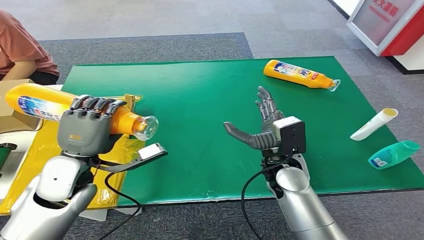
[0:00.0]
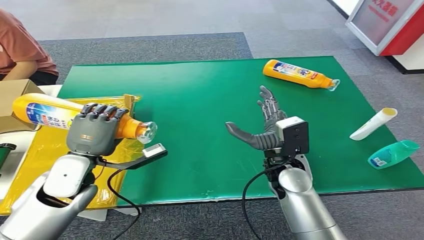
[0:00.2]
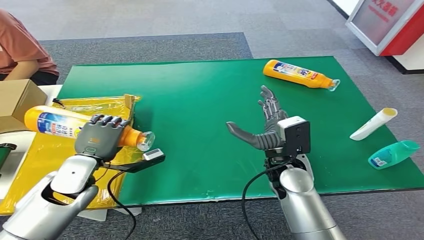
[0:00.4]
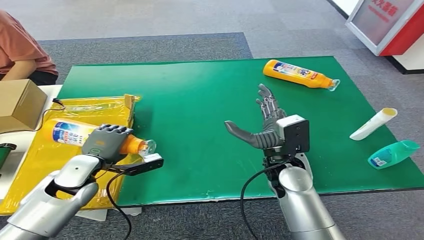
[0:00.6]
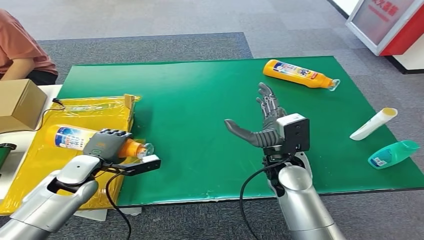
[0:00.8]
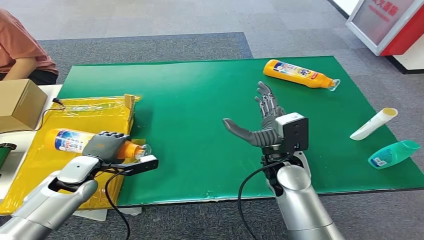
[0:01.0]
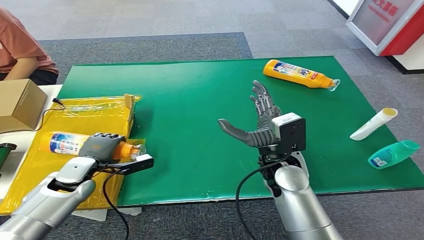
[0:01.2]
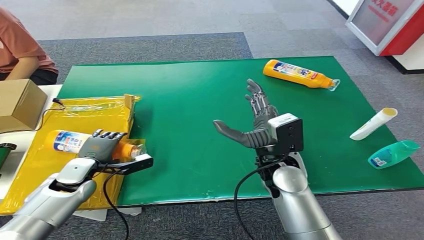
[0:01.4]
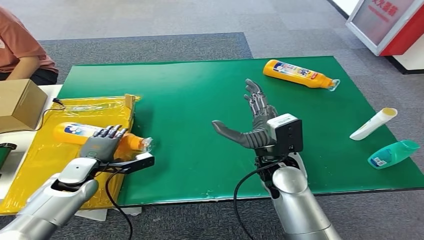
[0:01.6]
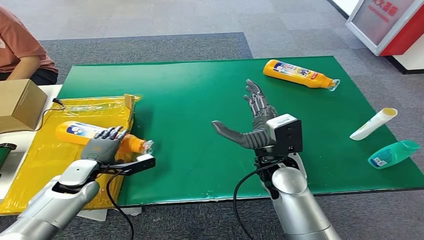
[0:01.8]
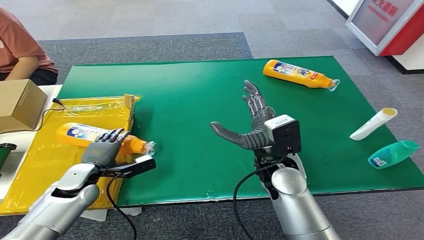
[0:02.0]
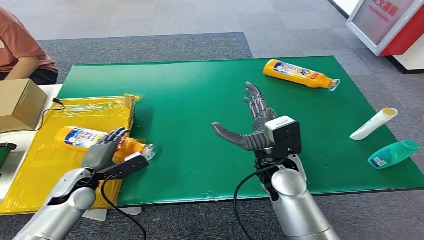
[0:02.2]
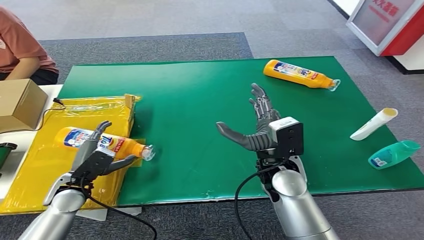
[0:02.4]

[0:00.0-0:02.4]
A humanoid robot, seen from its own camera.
Step, 0:00.0 to 0:02.4: Turn the bottle to the front side.
0:00.0 to 0:01.2: The left hand heads downward and to the left, covering roughly 15 cm.
0:01.2 to 0:02.4: The left hand shifts some 5 cm backward.
